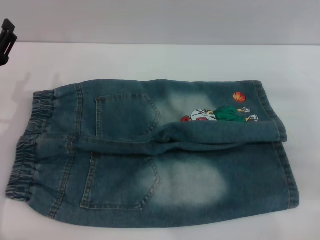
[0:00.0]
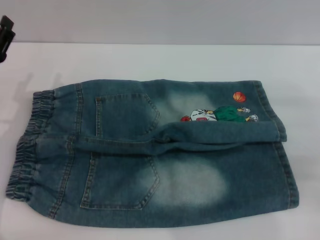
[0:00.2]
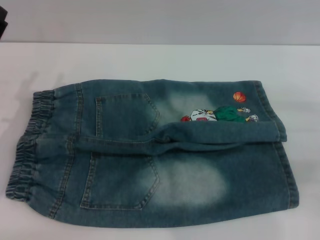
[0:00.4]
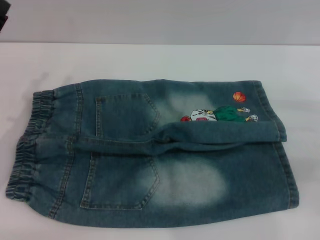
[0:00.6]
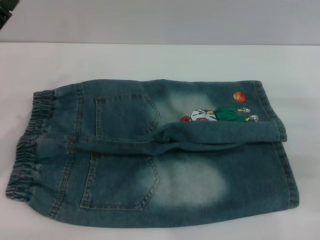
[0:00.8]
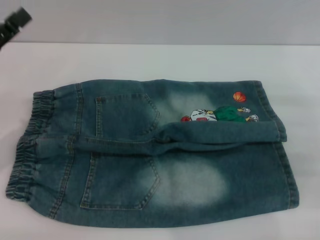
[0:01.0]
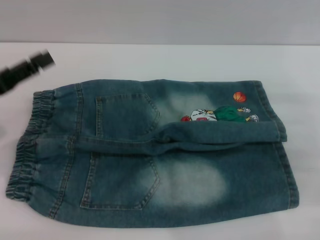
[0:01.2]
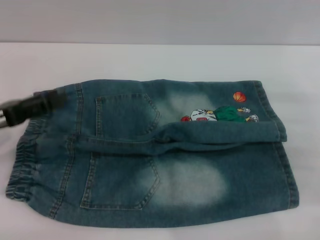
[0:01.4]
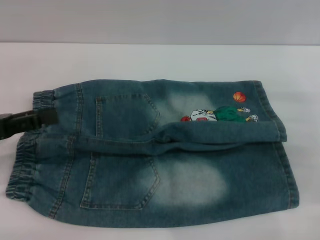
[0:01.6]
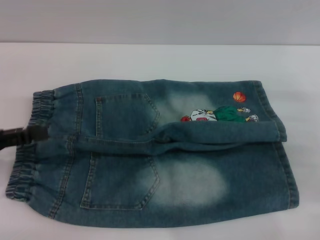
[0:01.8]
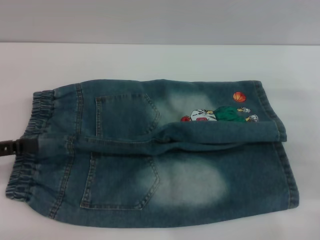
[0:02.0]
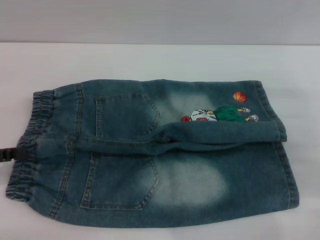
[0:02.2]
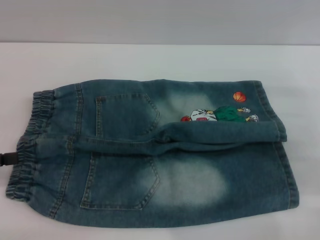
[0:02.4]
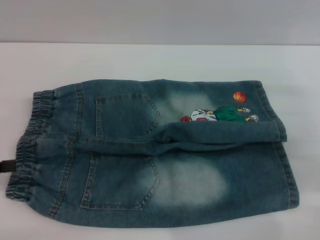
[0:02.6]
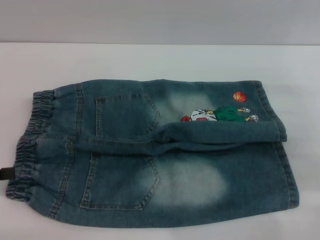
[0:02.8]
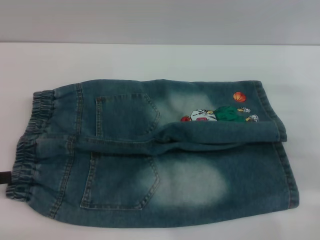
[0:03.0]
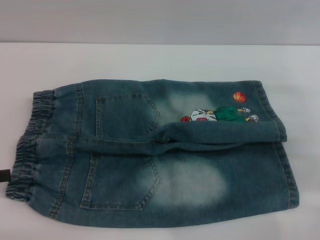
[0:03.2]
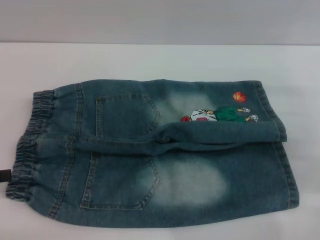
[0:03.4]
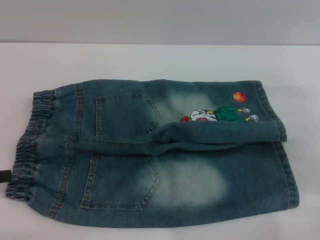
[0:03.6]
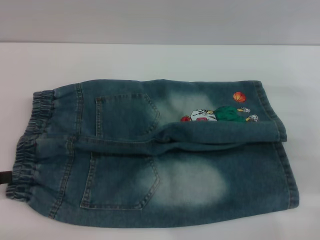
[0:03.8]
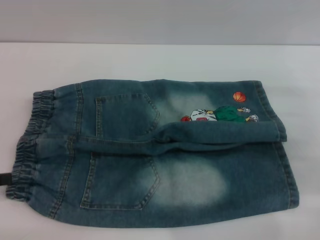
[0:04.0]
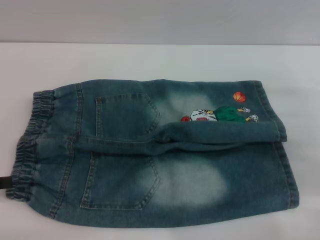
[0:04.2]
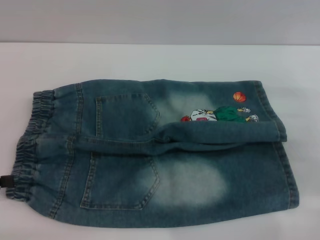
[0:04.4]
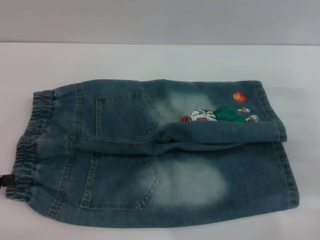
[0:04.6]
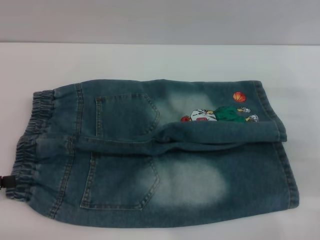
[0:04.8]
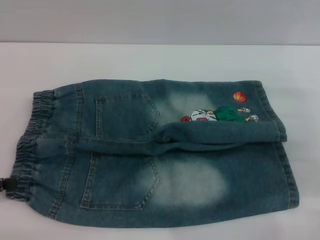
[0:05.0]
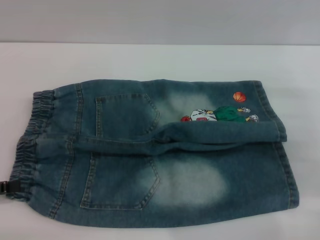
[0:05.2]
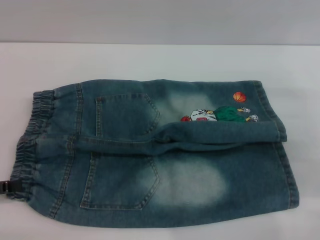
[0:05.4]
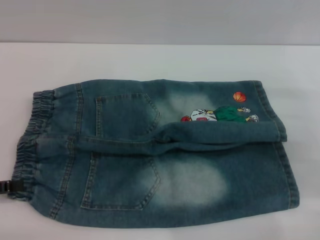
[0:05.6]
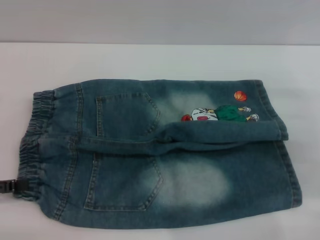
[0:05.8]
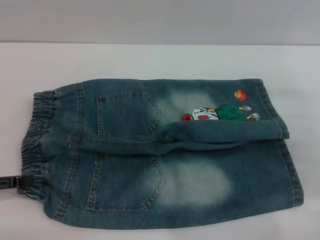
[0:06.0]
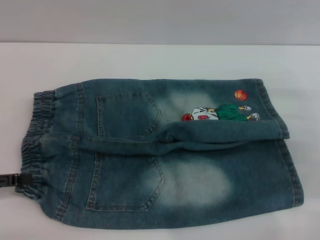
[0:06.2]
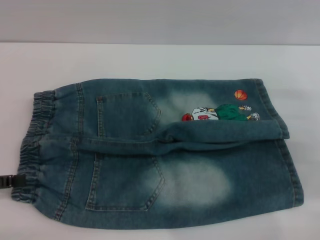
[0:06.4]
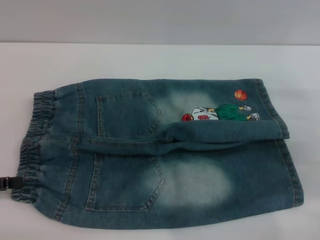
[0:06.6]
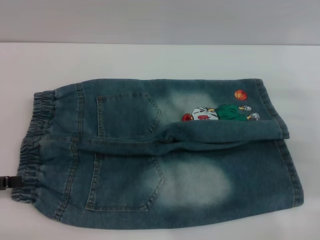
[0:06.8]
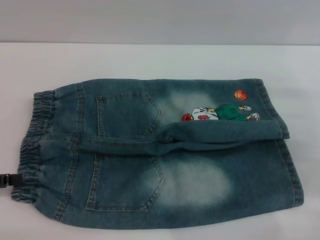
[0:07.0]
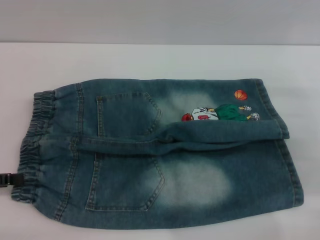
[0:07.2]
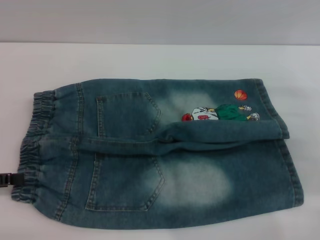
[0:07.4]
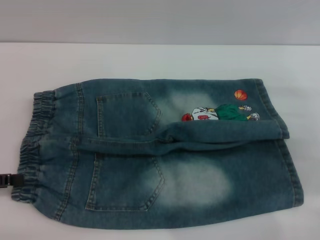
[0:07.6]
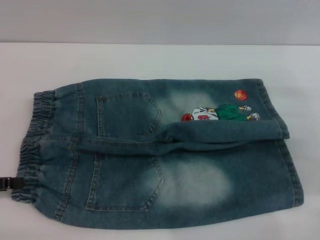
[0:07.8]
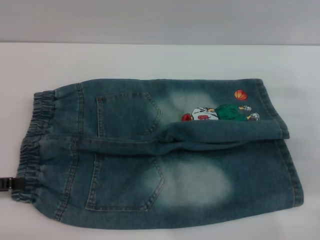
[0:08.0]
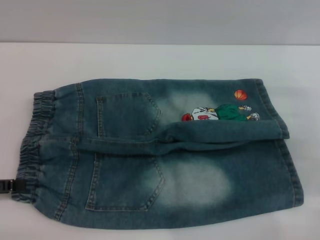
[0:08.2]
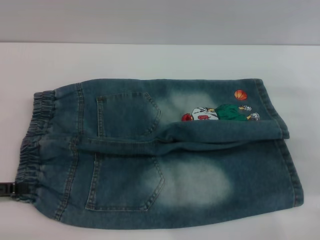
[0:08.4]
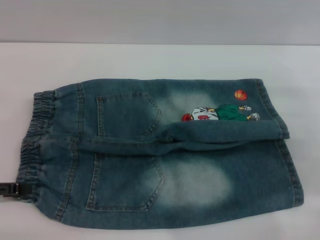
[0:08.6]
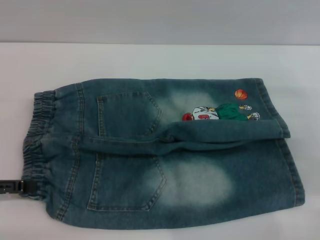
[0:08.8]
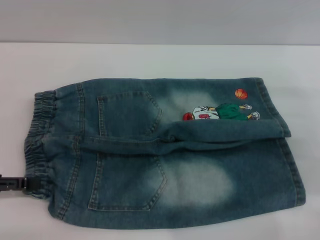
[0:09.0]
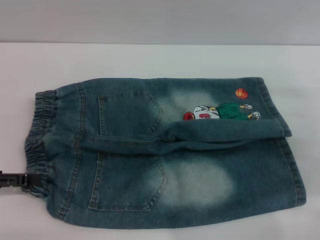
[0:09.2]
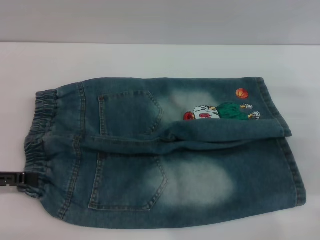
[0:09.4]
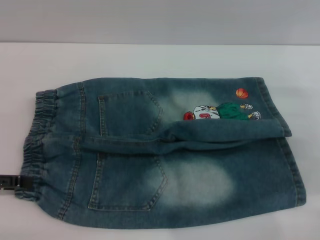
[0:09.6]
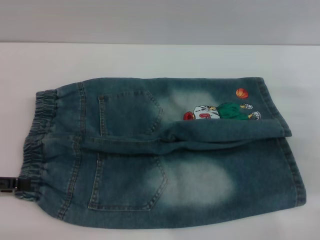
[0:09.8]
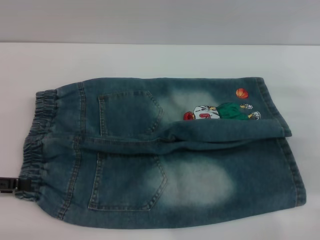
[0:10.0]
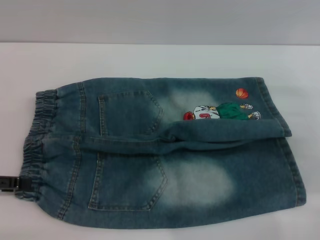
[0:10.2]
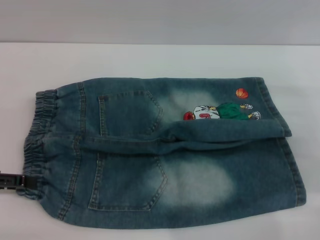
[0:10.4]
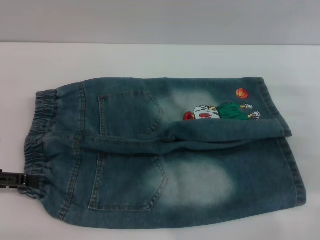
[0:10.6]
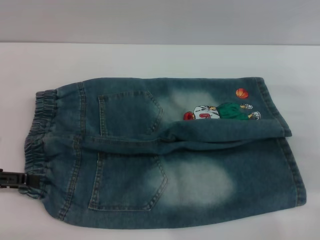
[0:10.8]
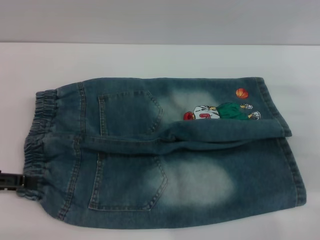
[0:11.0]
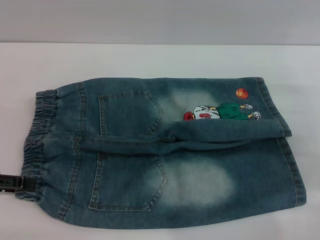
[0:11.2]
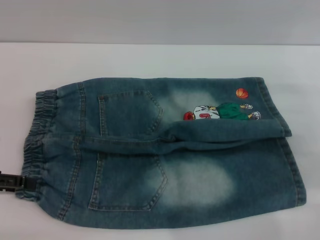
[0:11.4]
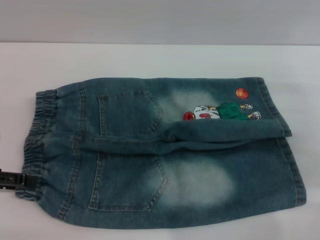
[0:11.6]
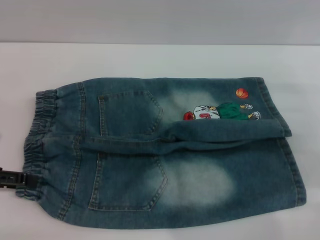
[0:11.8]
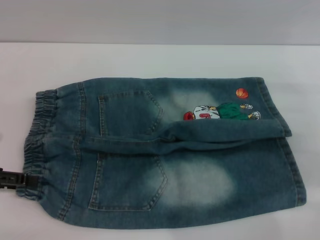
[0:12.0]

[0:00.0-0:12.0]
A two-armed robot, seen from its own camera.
0:00.0 to 0:01.6: The left gripper travels upward and to the left by approximately 5 cm.
0:01.6 to 0:03.0: The left gripper travels to the left by roughly 5 cm.
0:03.0 to 0:04.4: Neither gripper changes place.
0:04.4 to 0:10.4: There are only small adjustments of the grippers.
0:10.4 to 0:12.0: The two grippers keep their place.

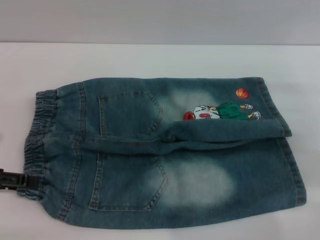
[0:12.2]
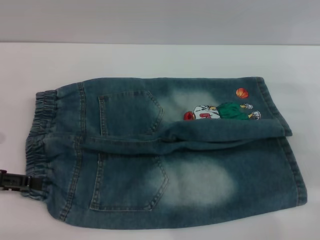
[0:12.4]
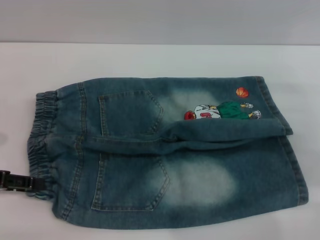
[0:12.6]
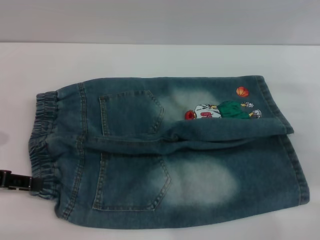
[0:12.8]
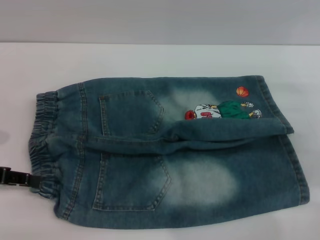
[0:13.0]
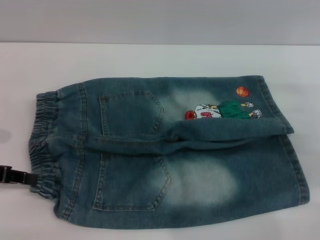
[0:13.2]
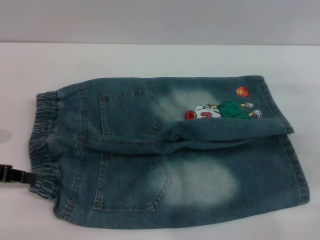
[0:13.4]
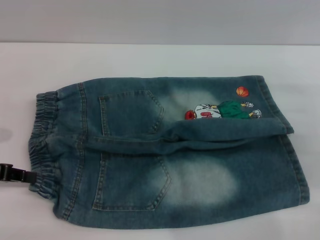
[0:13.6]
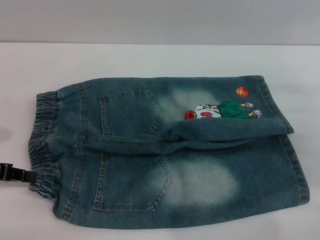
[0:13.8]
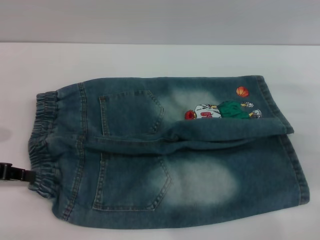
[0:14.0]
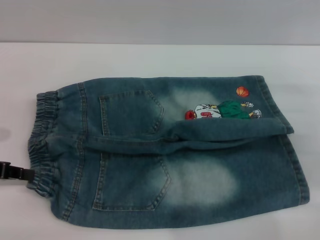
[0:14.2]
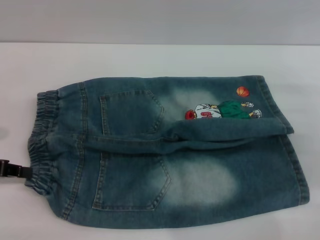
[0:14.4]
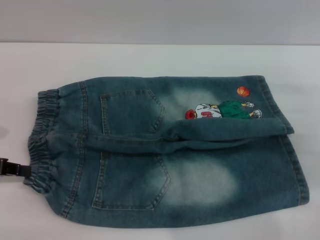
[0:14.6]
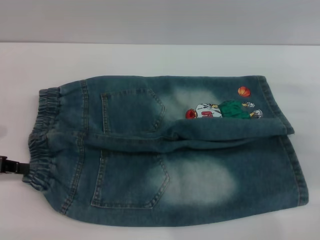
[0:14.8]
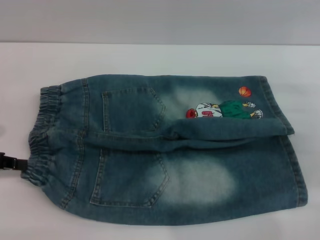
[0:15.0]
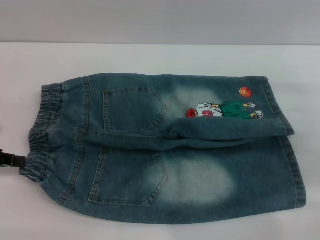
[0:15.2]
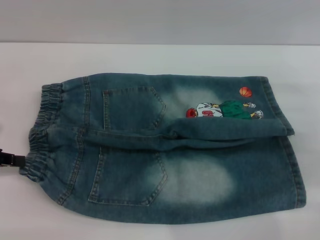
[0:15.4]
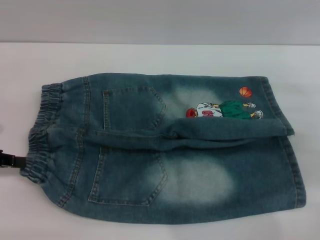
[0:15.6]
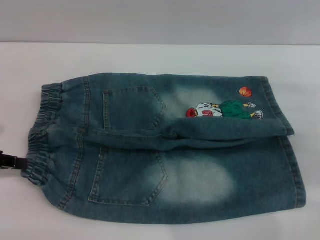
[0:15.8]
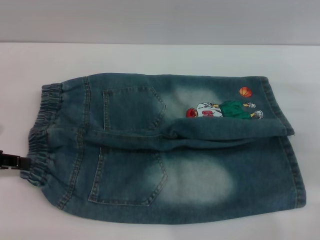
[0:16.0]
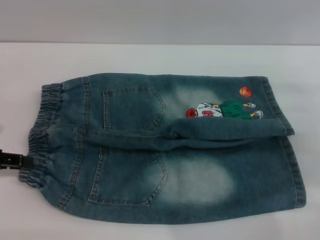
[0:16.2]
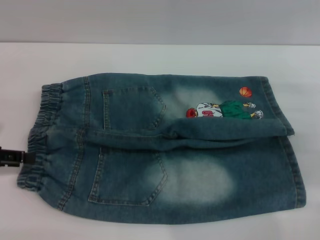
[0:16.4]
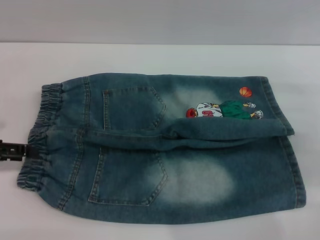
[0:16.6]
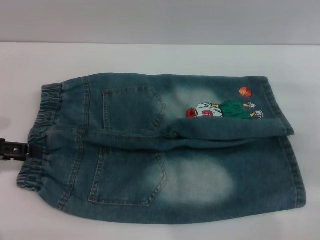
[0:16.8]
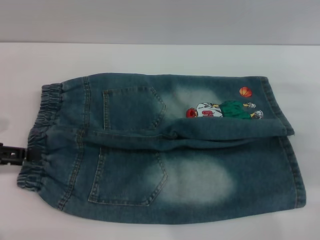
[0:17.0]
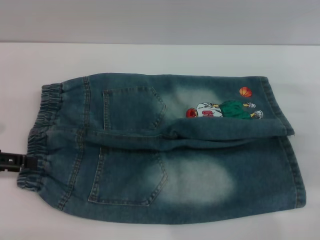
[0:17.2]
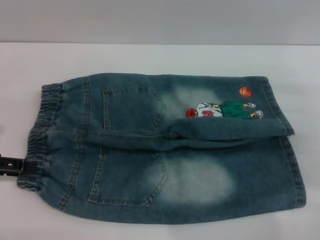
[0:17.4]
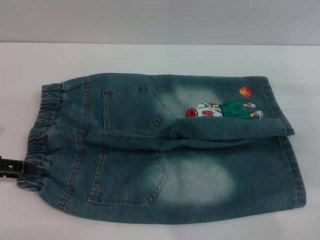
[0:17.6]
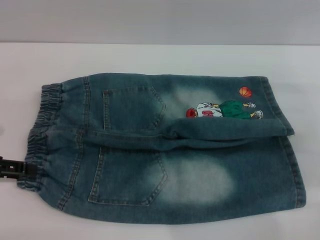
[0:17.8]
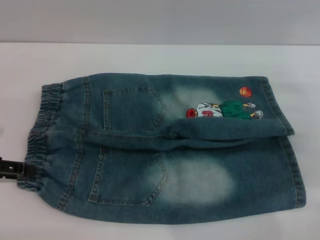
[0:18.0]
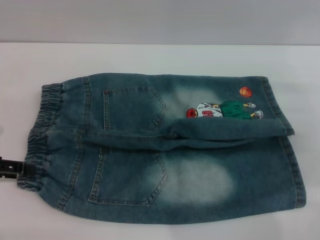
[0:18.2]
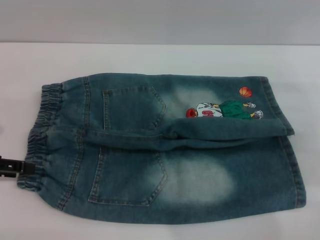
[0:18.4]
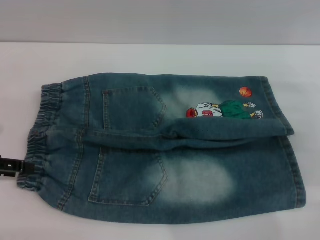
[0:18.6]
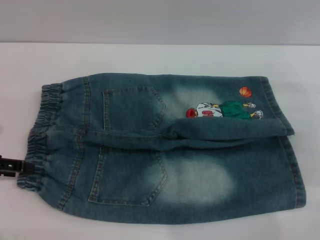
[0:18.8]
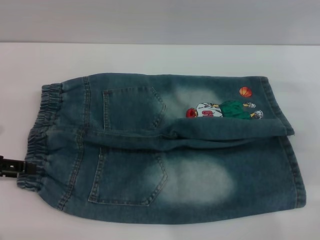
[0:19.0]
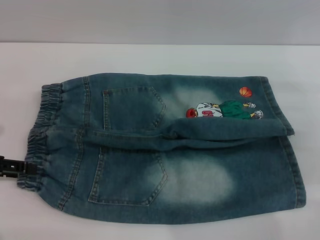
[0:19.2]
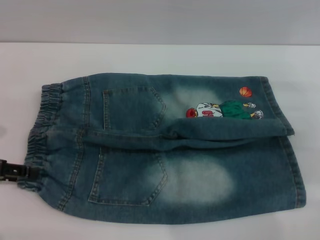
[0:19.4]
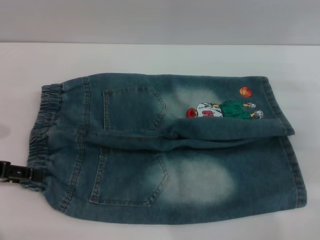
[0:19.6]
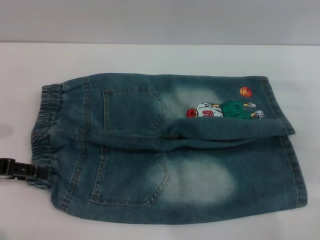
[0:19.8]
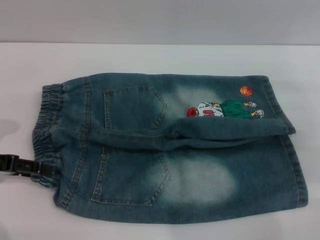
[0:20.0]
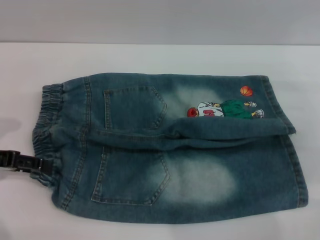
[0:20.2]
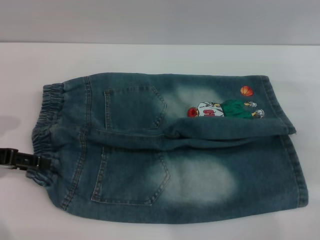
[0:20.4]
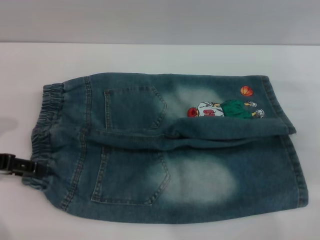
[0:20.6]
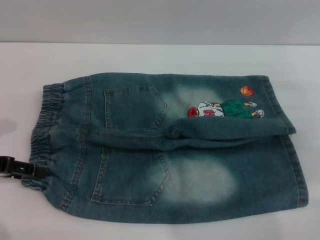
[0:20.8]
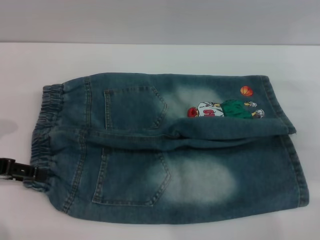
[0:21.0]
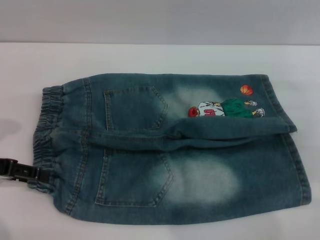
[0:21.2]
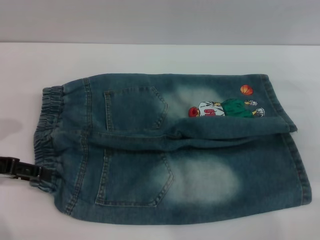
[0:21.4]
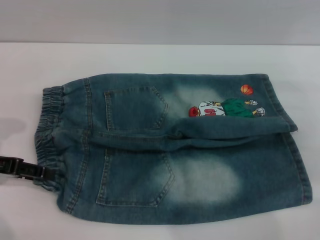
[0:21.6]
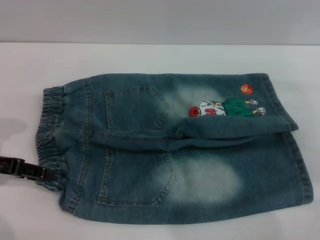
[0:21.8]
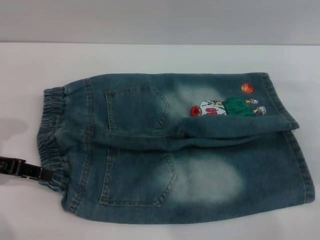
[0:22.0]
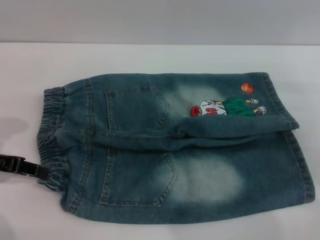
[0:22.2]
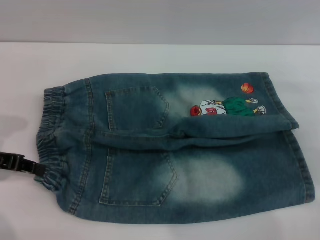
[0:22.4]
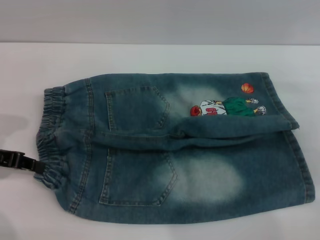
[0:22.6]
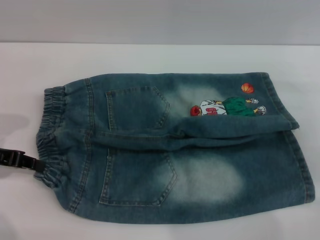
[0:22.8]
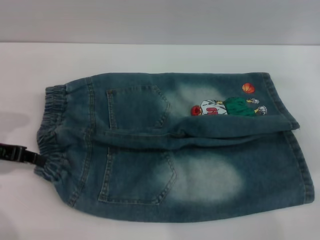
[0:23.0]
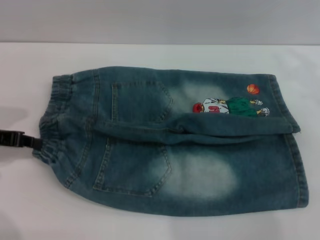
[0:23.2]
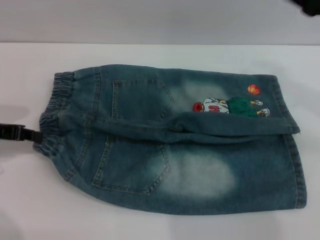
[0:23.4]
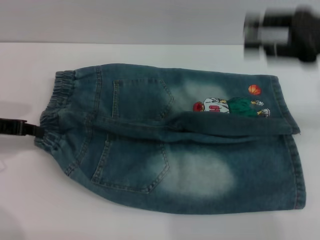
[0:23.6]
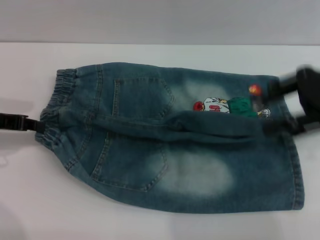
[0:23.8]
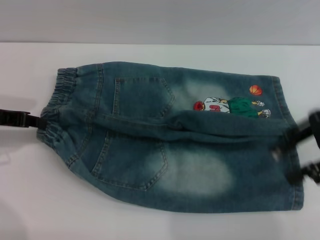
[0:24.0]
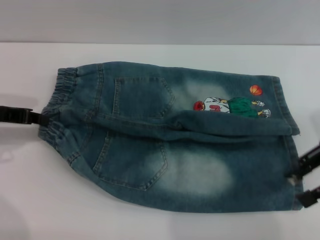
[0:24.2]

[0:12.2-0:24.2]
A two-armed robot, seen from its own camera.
0:12.2 to 0:13.8: The left gripper closes.
0:13.8 to 0:15.2: The grippers make only small movements.
0:15.2 to 0:16.6: The left gripper opens.
0:16.6 to 0:21.2: There are only small adjustments of the grippers.
0:21.2 to 0:22.6: The left gripper closes up.
0:22.6 to 0:24.2: The right gripper shifts about 10 cm upward.
